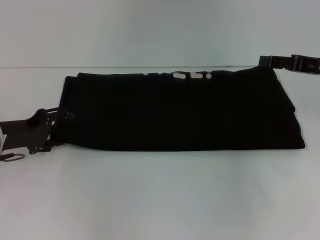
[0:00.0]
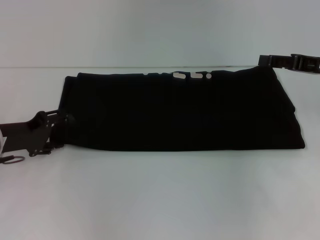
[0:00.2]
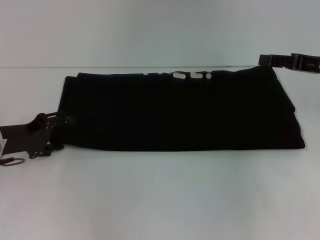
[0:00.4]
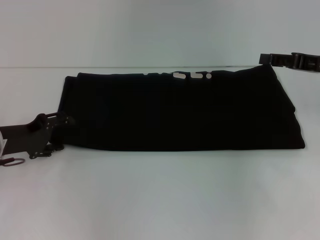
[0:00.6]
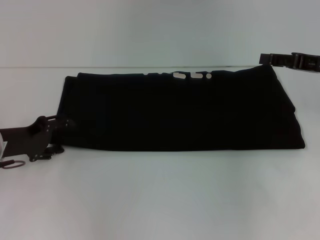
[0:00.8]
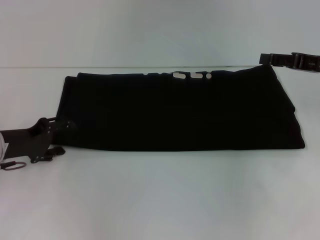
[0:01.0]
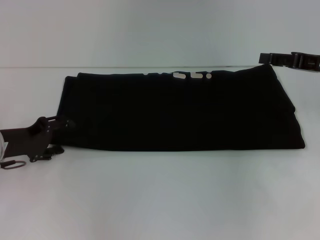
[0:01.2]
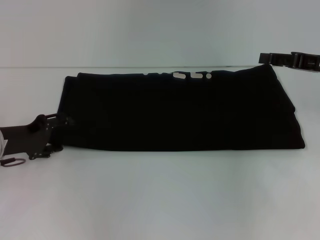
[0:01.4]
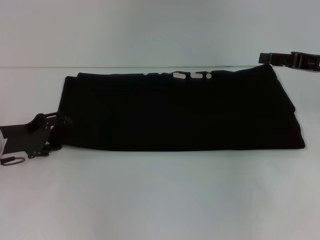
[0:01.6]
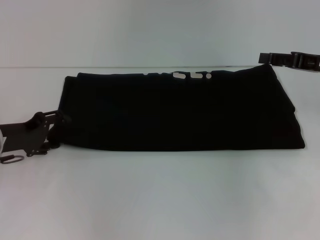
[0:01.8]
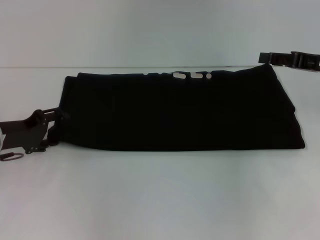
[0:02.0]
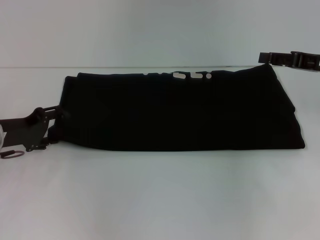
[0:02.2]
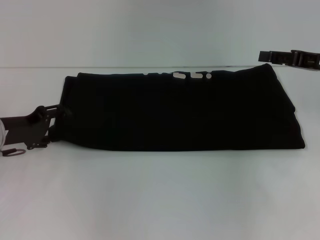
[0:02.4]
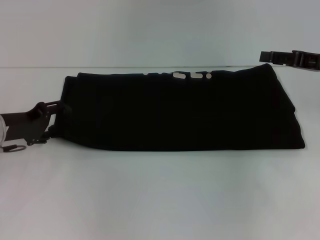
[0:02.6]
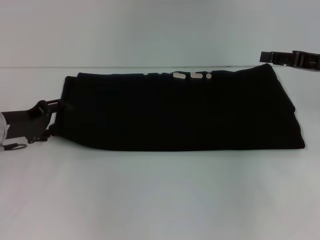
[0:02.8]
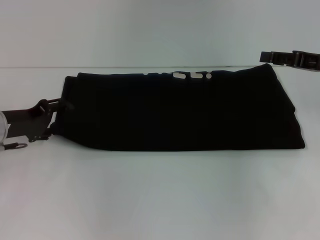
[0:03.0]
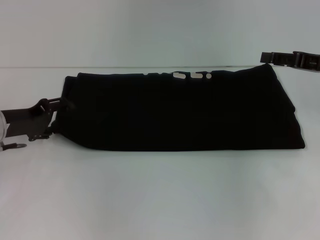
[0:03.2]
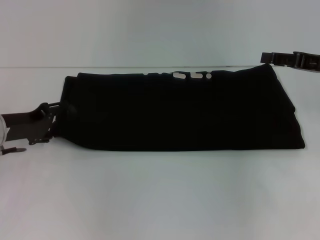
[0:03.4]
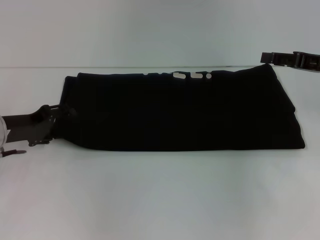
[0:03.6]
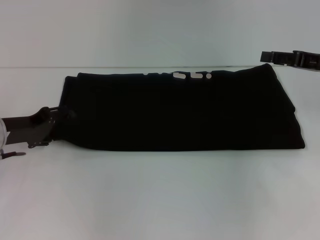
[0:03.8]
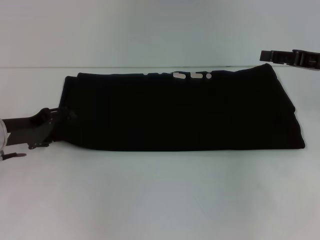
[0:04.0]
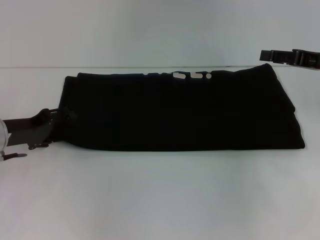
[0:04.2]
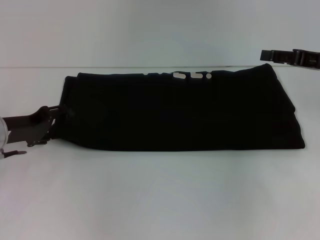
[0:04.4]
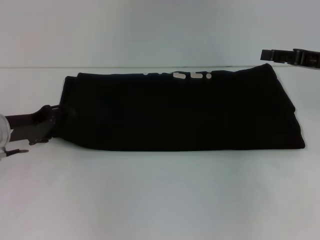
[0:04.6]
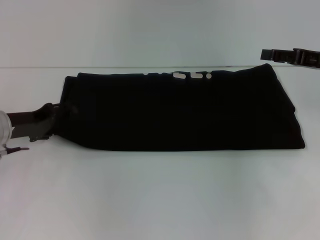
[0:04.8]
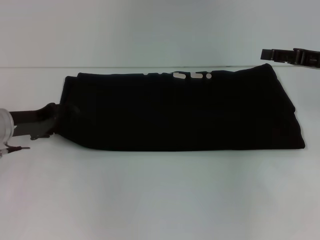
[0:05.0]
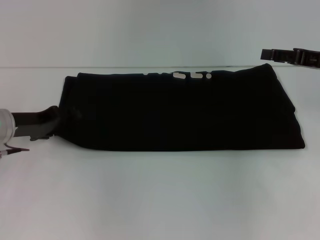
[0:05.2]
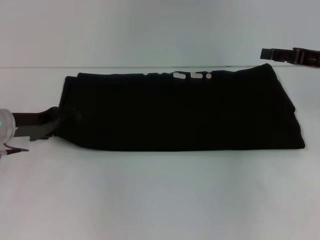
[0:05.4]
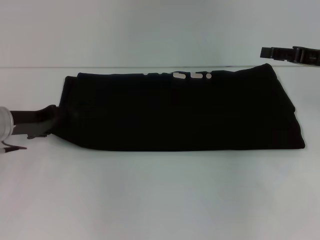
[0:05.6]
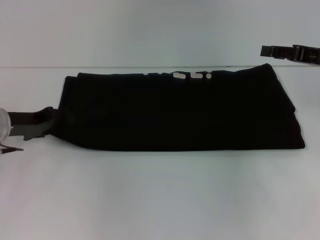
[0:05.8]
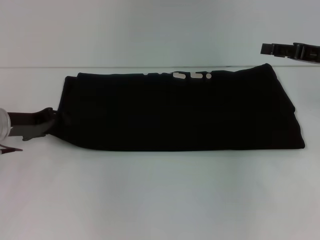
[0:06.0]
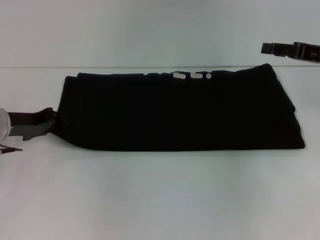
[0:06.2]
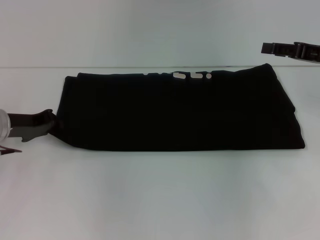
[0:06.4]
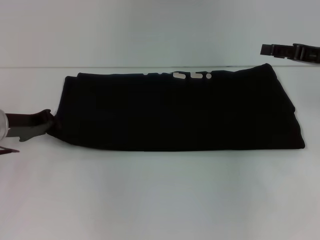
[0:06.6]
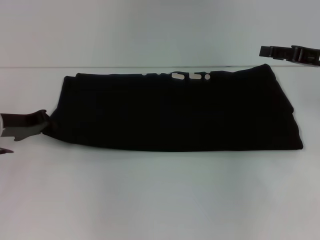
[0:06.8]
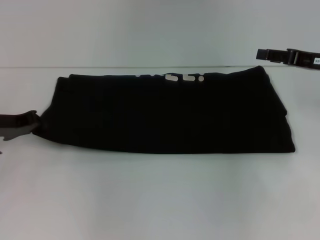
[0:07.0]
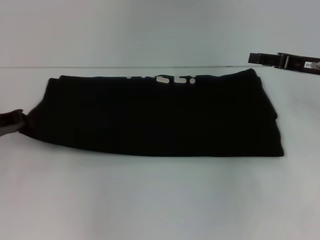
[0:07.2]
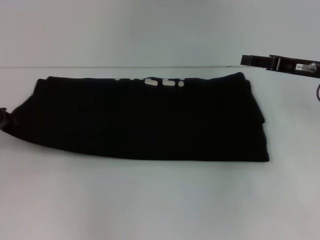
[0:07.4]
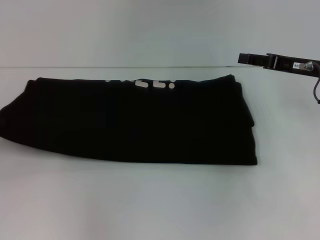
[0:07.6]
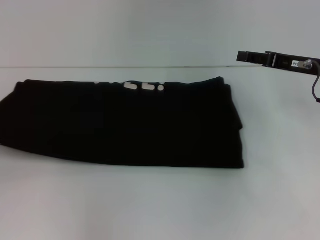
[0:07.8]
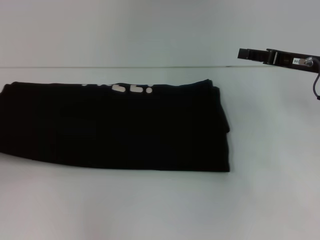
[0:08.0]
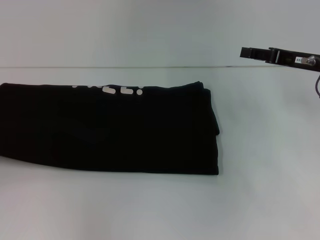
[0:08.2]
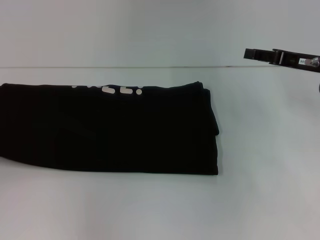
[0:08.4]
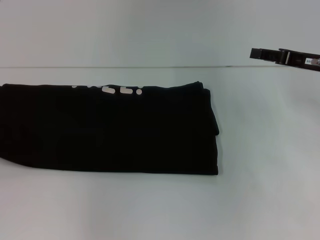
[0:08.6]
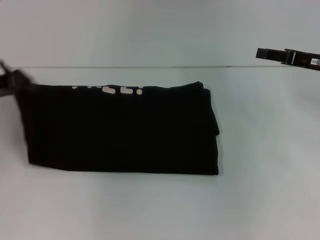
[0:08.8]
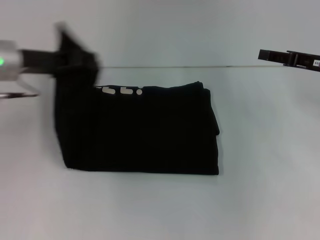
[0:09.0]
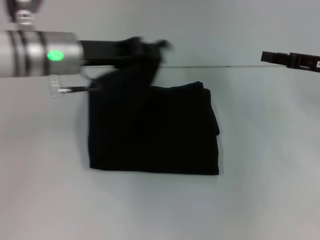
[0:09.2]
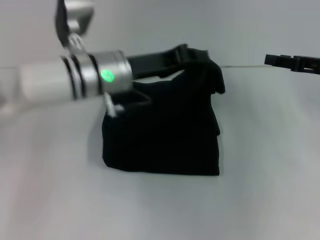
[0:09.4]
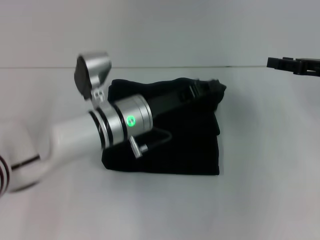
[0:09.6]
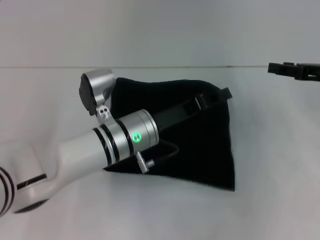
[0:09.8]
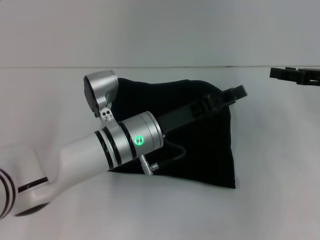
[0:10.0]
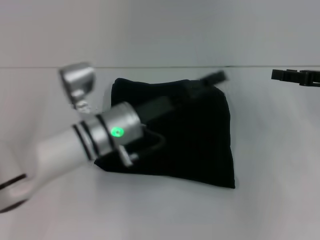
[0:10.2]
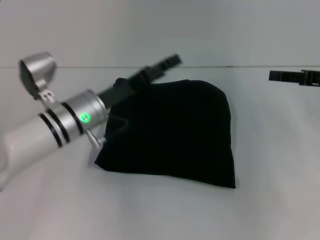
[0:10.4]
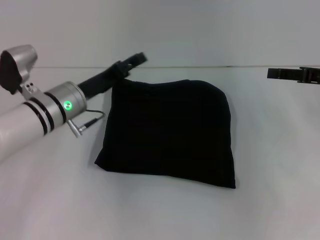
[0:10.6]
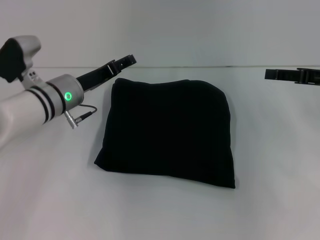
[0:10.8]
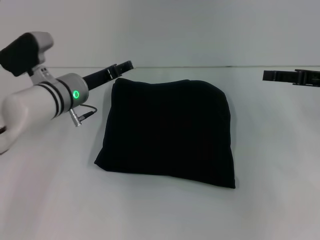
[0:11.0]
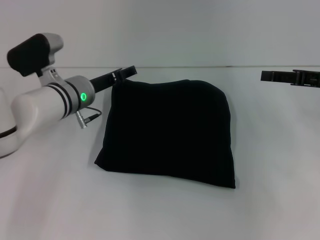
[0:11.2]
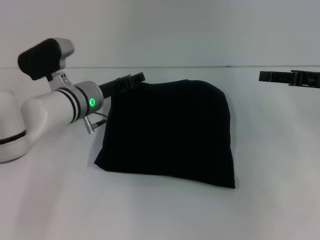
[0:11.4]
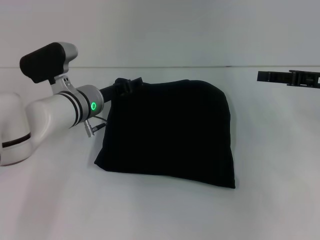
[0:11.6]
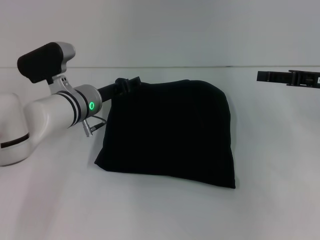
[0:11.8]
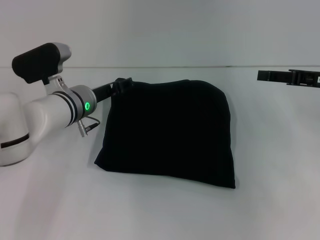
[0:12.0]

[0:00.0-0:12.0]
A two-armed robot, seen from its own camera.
Step, 0.0 to 9.8 s: Fold the clothes with your left hand.
0.0 to 1.6 s: Neither gripper changes place.
1.6 to 3.0 s: The grippers move only a little.
3.0 to 4.4 s: Both grippers stay about where they are.
4.4 to 6.0 s: The grippers make only small movements.
6.0 to 7.6 s: The left gripper shifts roughly 10 cm to the left, and closes its fingers.
7.6 to 9.0 s: The left gripper moves to the right, upward and forward, roughly 15 cm.
9.0 to 10.4 s: The left gripper is displaced to the right and downward by approximately 15 cm, and opens its fingers.
10.4 to 12.0 s: The left gripper shifts about 5 cm forward.

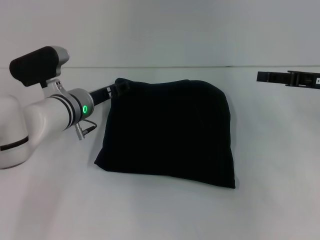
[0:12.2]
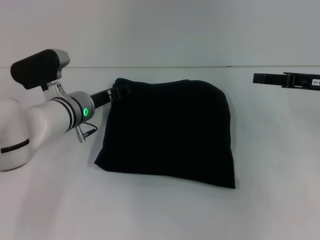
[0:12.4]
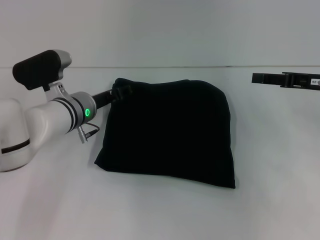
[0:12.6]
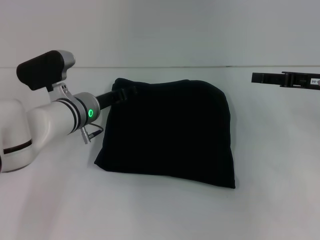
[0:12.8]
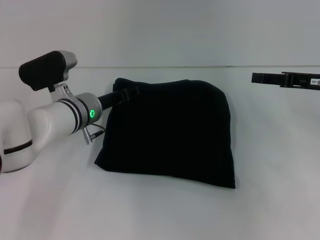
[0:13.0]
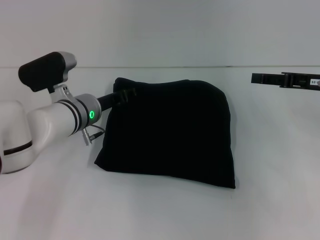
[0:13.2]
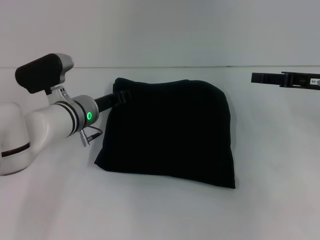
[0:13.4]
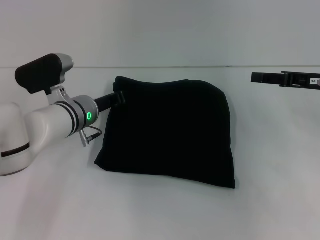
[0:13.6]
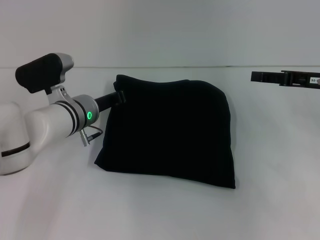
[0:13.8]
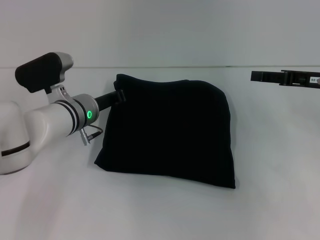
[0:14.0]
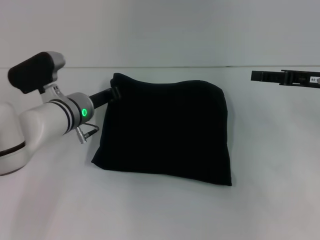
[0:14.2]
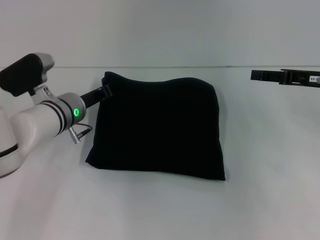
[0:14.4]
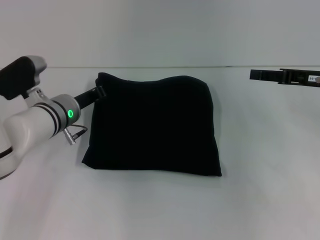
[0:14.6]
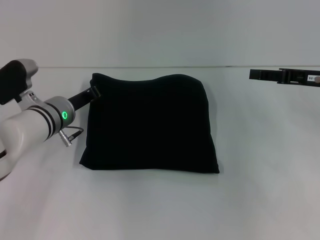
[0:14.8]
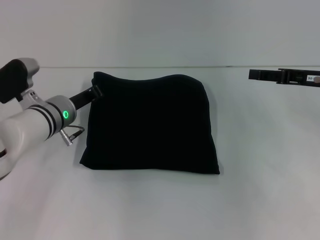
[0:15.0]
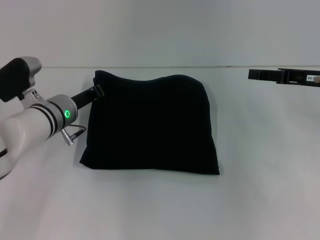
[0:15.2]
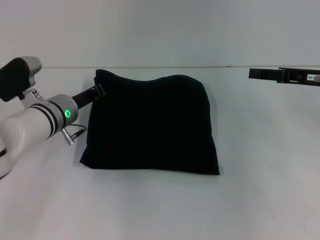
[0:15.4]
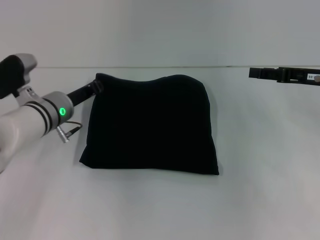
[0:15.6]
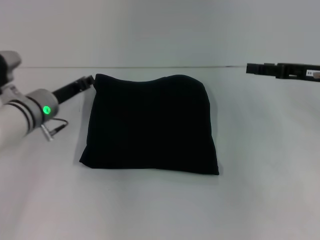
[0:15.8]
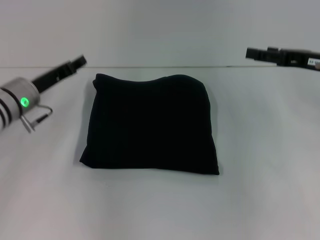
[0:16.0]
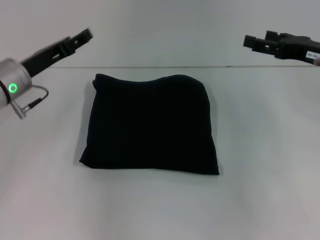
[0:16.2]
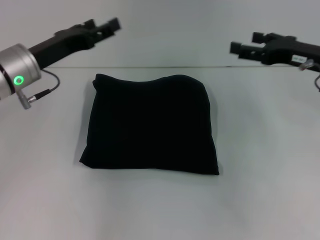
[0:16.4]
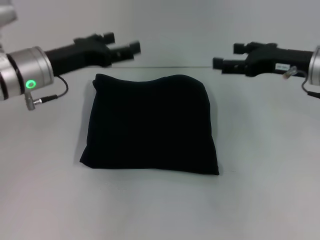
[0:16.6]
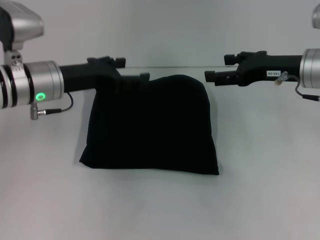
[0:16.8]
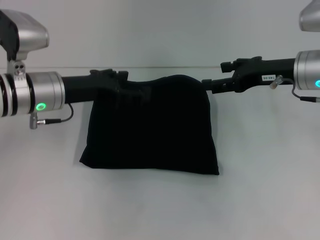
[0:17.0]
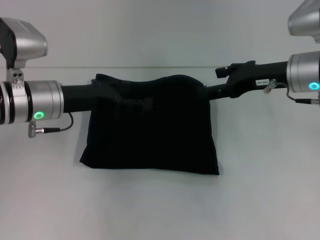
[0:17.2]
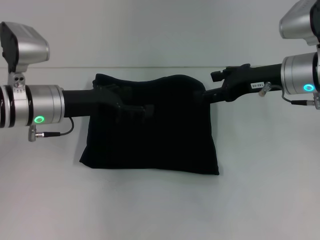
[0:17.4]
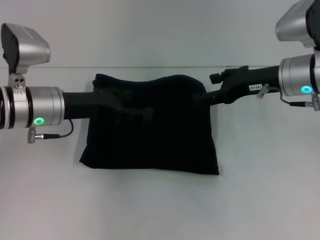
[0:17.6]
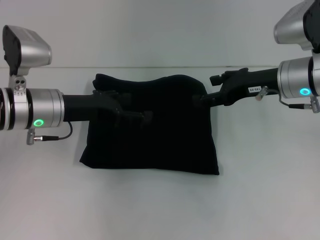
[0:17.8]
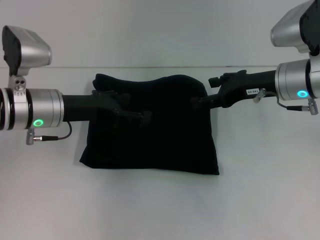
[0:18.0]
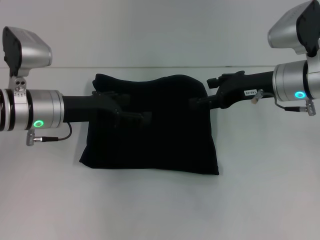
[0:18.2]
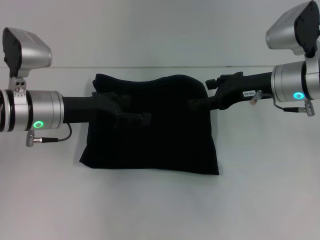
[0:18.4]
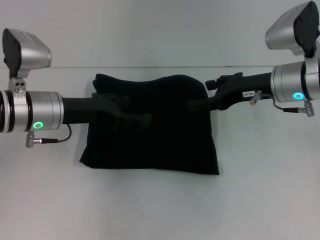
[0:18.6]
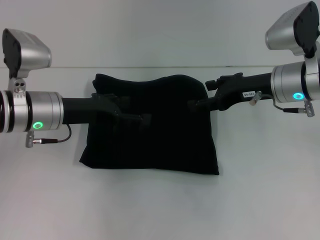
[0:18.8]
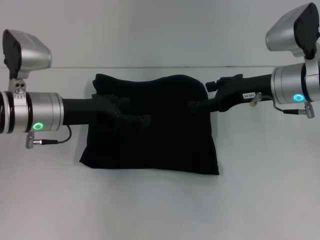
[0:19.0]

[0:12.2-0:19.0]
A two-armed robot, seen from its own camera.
12.2 to 13.6 s: Both grippers stay about where they are.
13.6 to 15.0 s: The left gripper closes.
15.0 to 16.2 s: The left gripper is displaced upward and to the left by roughly 10 cm, and opens up. The right gripper opens.
16.2 to 17.6 s: The left gripper opens up, while the right gripper travels to the left by about 10 cm.
17.6 to 19.0 s: Both grippers stay about where they are.

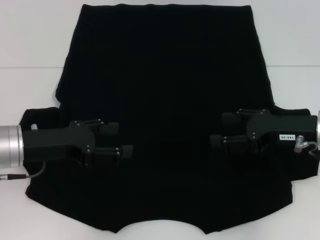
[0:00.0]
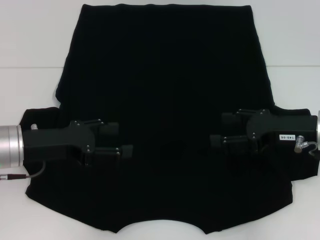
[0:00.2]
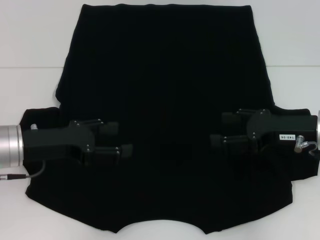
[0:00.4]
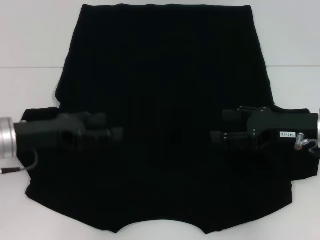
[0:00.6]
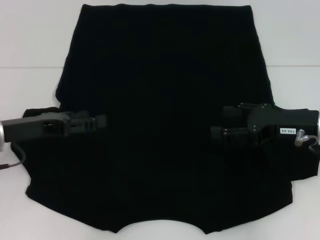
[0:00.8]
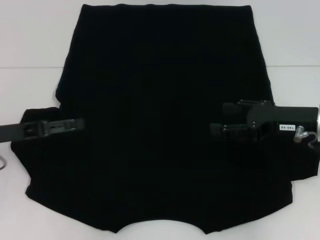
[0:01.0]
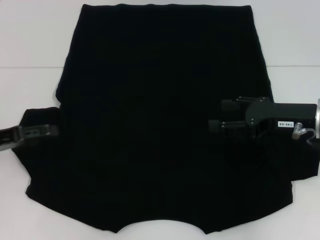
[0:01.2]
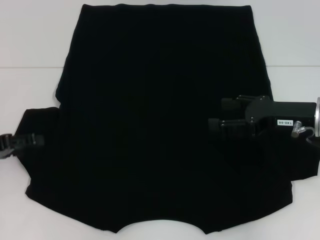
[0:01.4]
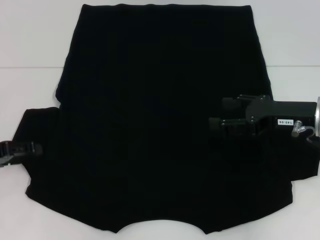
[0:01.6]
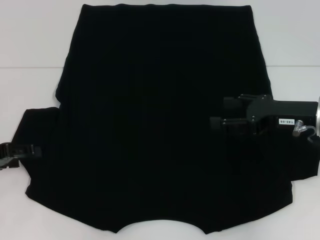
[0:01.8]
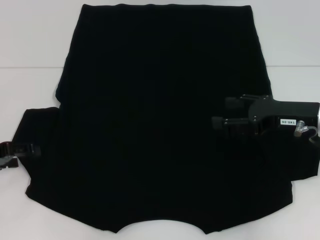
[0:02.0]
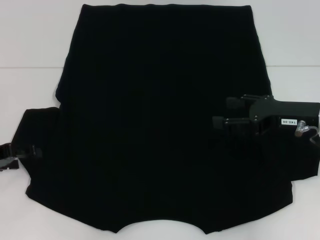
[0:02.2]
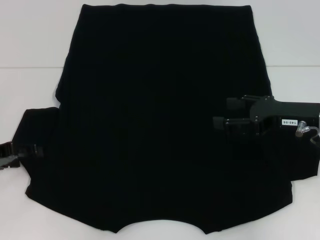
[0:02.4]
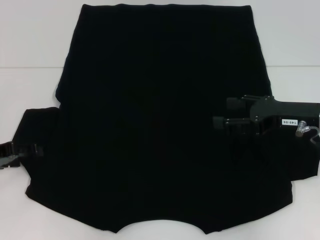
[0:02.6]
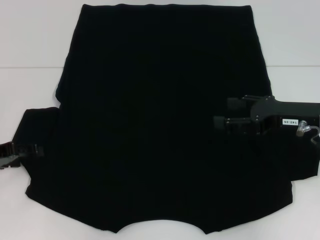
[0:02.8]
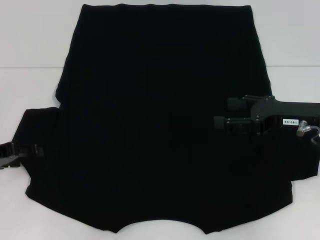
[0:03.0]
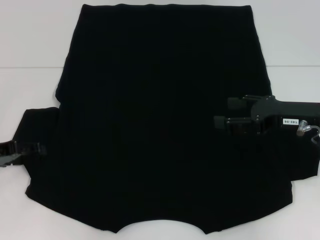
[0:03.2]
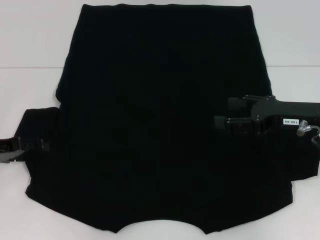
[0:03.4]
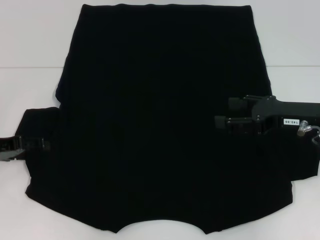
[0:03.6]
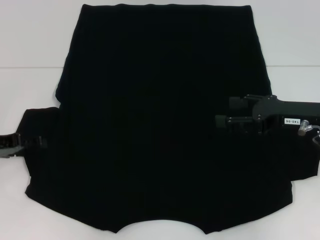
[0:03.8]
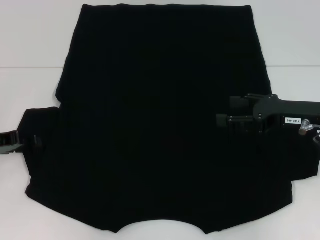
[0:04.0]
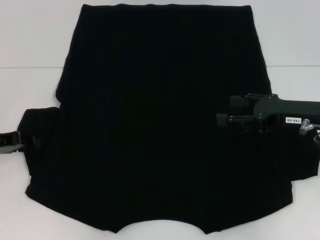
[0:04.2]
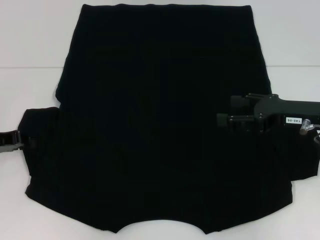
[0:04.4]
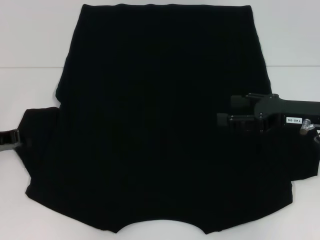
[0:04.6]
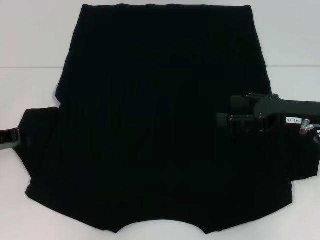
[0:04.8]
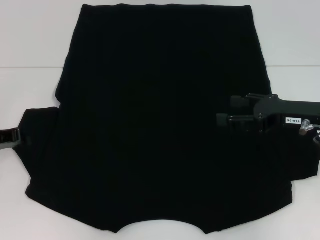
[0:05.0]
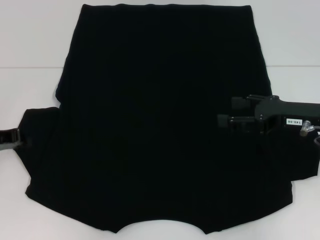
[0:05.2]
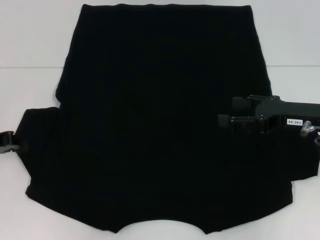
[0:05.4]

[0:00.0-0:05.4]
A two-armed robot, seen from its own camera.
0.0 to 1.4 s: The left gripper heads to the left, covering approximately 10 cm.
1.4 to 4.0 s: The grippers move only a little.
